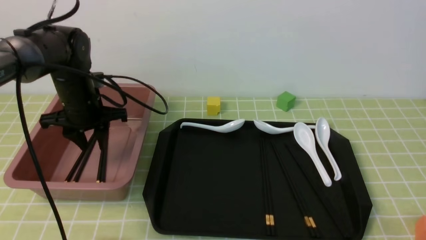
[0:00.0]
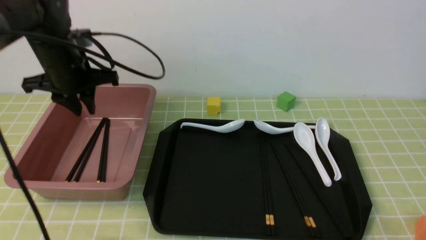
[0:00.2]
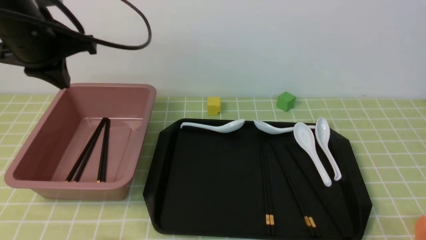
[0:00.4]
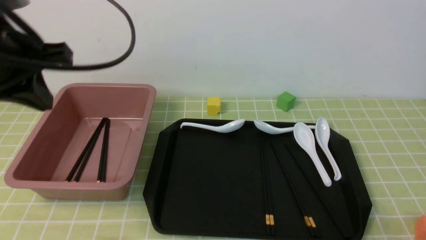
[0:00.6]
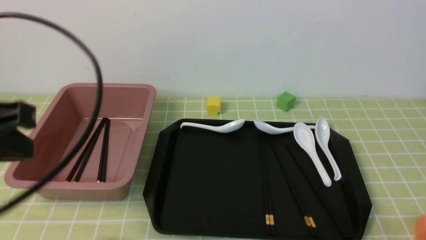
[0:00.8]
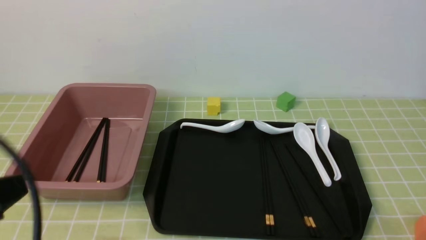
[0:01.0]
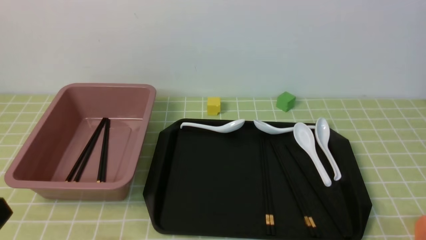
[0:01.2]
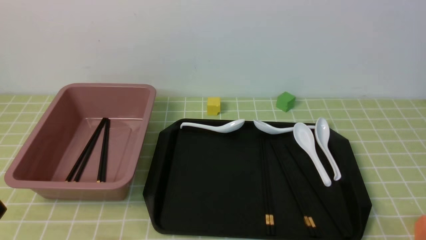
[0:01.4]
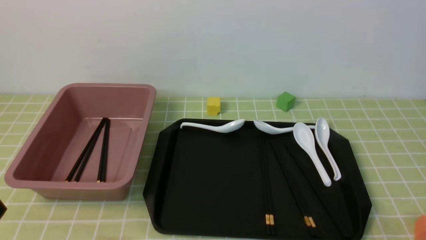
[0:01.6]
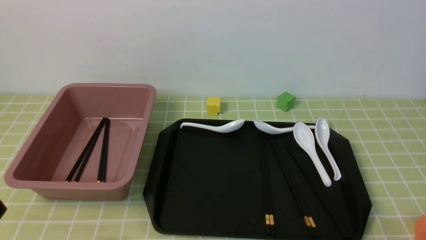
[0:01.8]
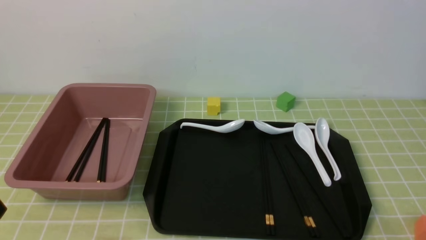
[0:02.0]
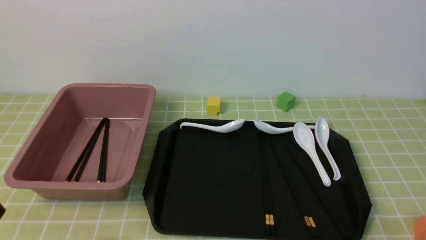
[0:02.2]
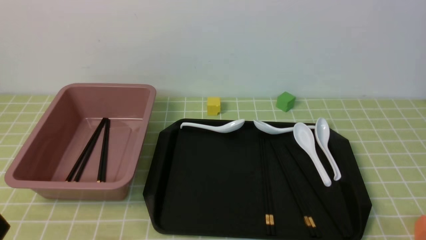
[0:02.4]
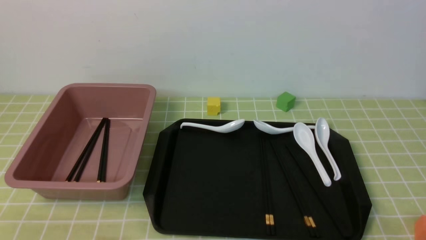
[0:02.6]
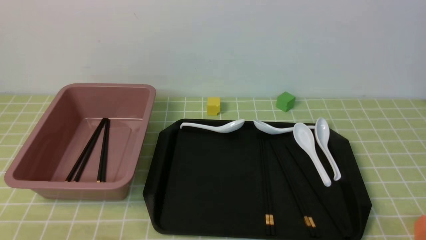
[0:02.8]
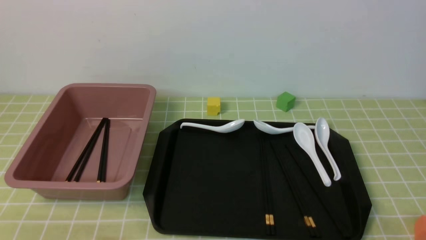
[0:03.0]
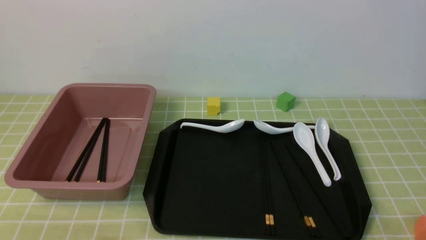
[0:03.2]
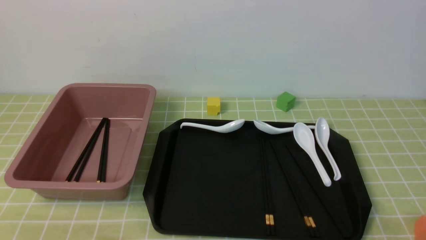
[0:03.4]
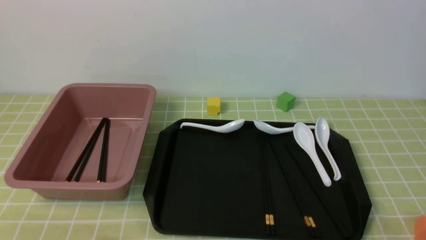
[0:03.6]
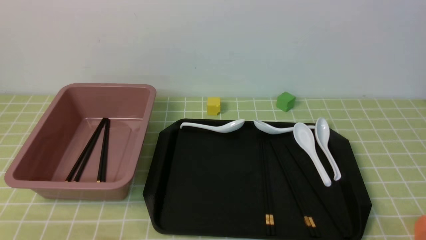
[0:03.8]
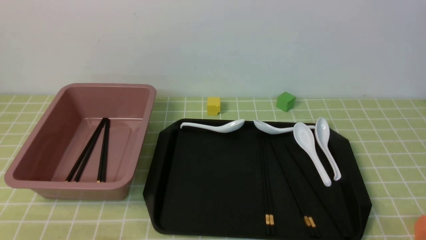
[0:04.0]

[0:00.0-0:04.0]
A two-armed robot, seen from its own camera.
0:00.0 to 0:01.4: The left gripper travels backward by about 35 cm, and closes up.

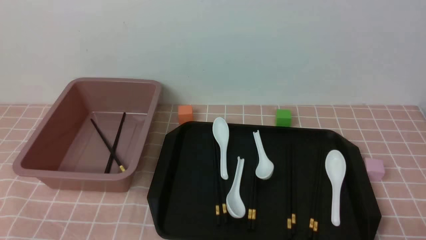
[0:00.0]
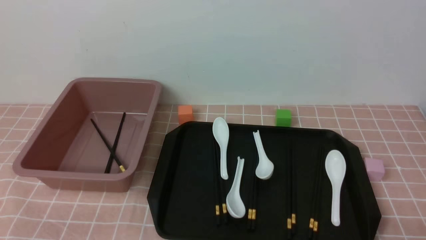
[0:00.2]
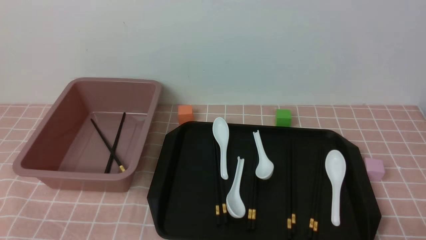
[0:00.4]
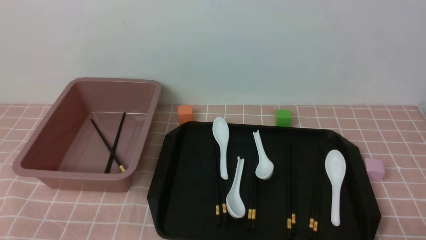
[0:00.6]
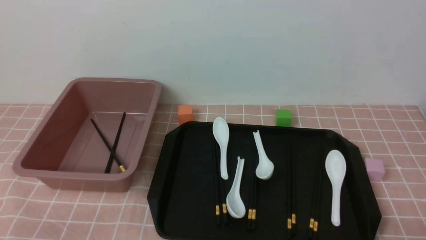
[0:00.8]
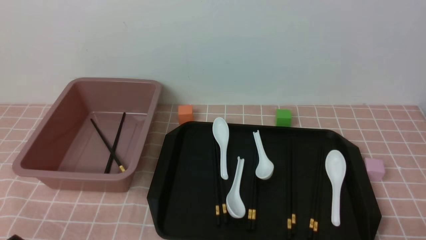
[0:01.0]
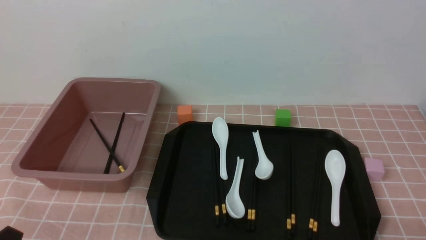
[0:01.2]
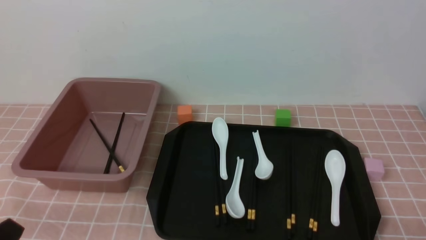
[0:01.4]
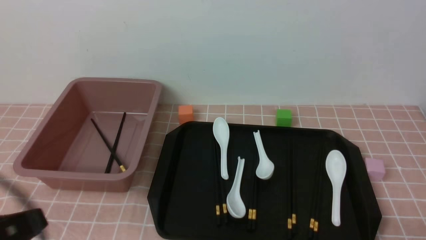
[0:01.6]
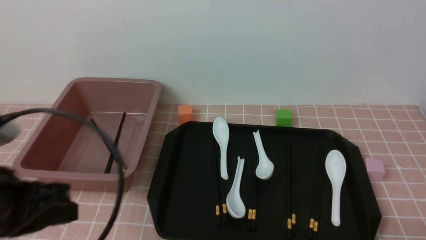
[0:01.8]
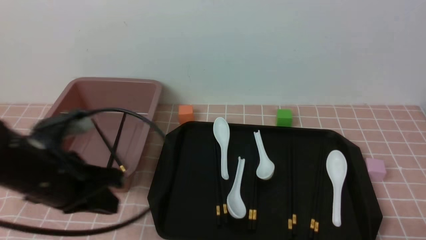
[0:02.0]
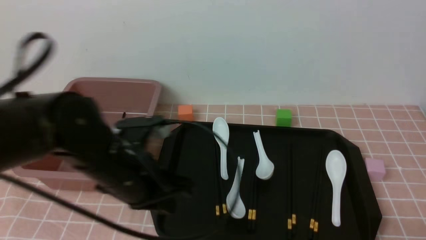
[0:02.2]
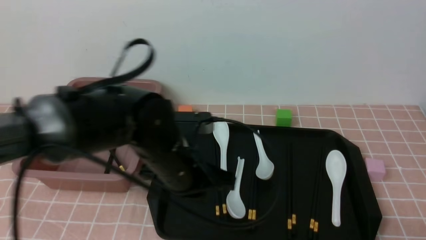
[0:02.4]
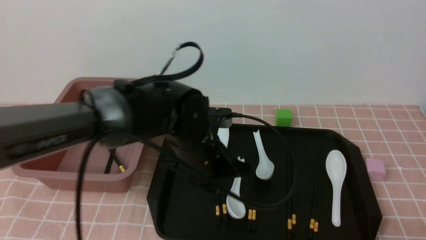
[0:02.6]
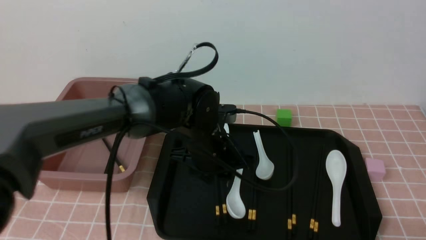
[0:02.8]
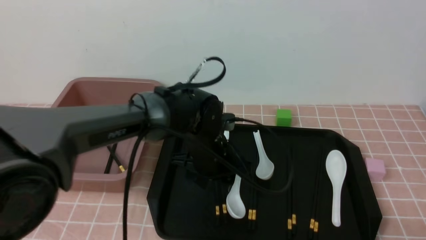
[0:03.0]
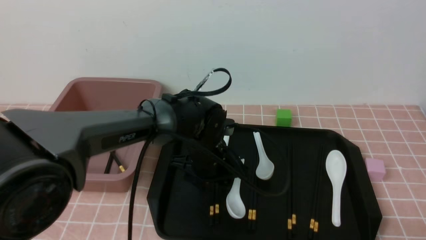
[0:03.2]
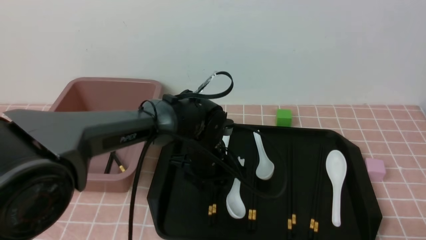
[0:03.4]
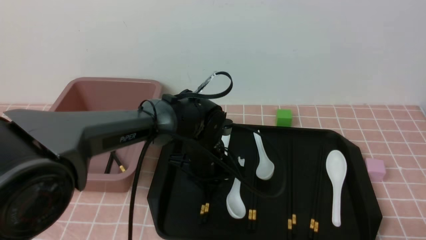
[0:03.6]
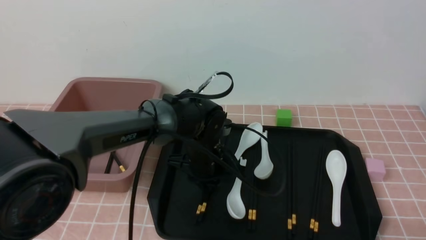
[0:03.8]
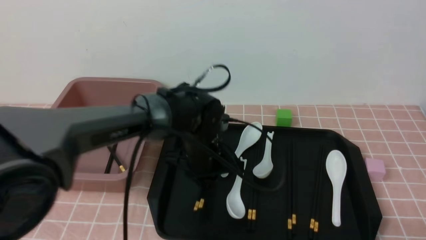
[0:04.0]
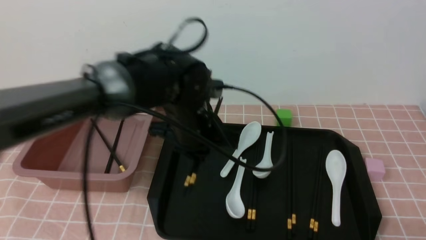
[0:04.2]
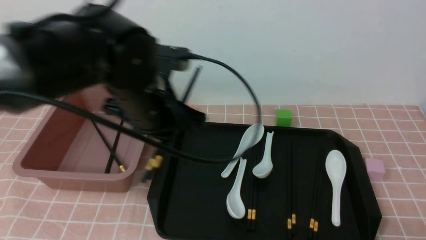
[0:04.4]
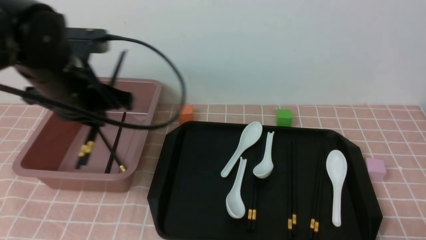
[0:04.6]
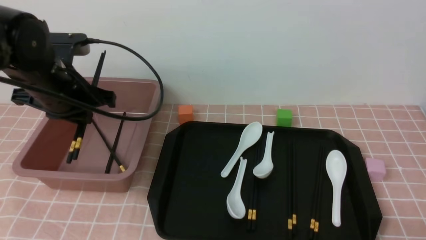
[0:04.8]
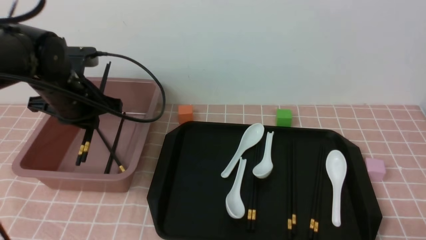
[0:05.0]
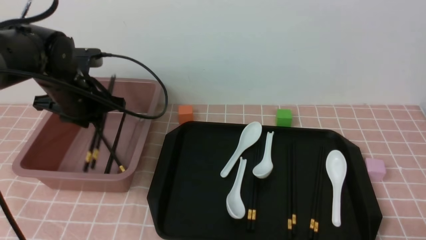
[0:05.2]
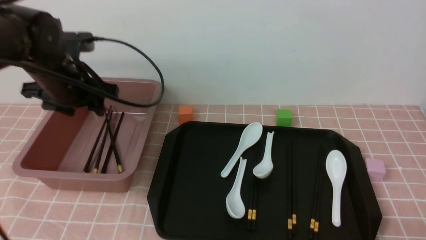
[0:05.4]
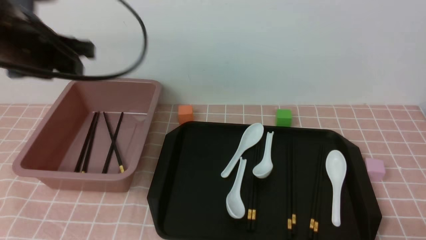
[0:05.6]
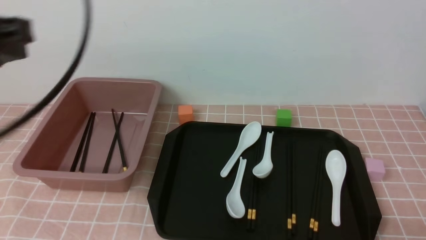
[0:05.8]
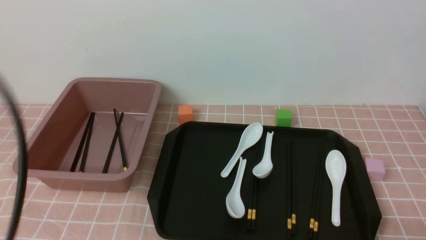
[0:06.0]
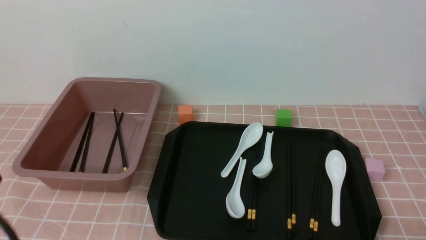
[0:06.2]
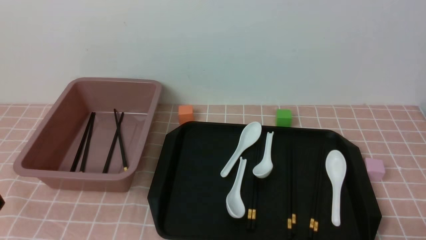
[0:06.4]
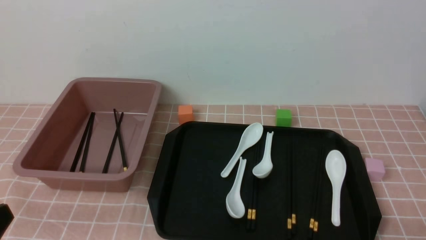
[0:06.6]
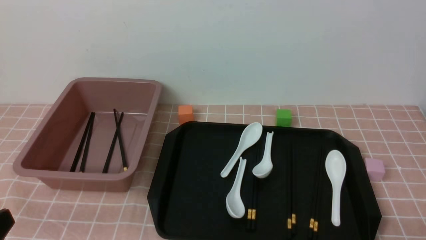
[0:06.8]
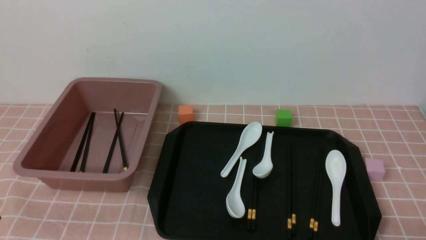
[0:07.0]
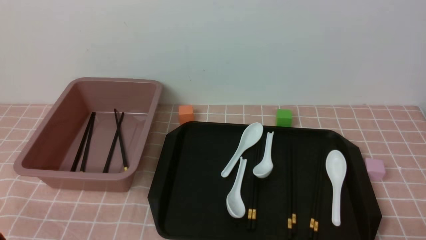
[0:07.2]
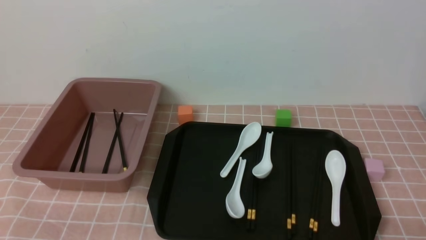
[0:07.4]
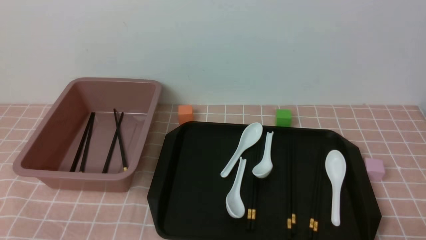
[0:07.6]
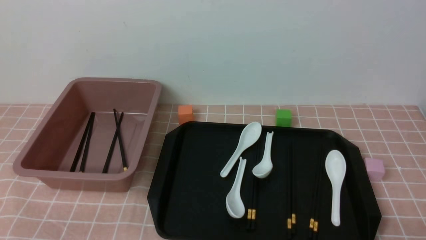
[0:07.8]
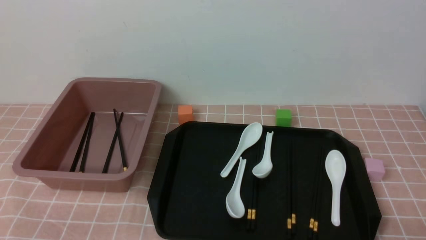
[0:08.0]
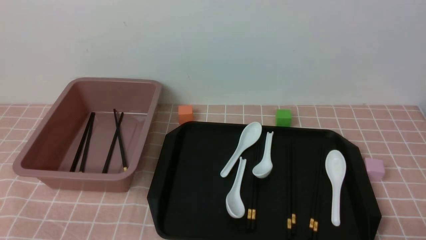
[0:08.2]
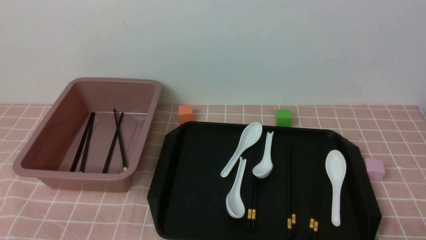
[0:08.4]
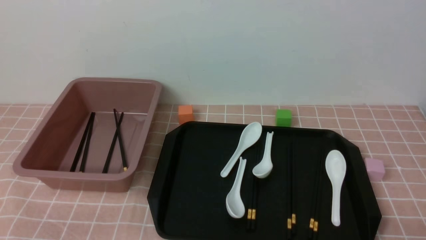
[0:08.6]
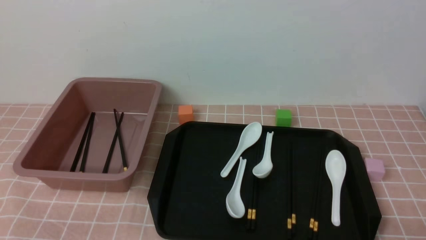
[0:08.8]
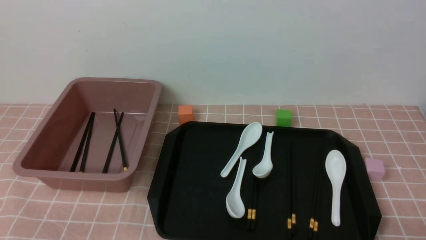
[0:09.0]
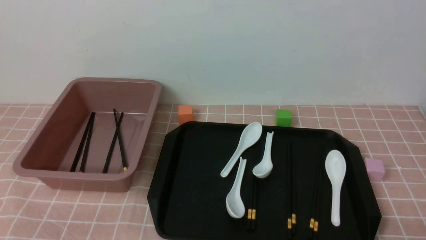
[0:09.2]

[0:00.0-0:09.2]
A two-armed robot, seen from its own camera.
Step, 0:00.0 to 0:04.2: use the left arm to grab a pair of chopsticks.
Step, 0:04.4 to 0:05.4: use the left arm to put the chopsticks into the lunch box.
0:00.0 to 0:01.6: The left gripper goes approximately 10 cm upward.
0:01.6 to 0:03.0: The left gripper travels forward, to the right and downward by some 35 cm, and opens its fingers.
0:03.0 to 0:04.6: The left gripper shifts approximately 20 cm to the left and upward, and closes its fingers.
0:04.6 to 0:06.2: The left gripper is displaced backward by roughly 25 cm, and opens, then closes once more.
0:07.6 to 0:09.2: Both grippers stay about where they are.

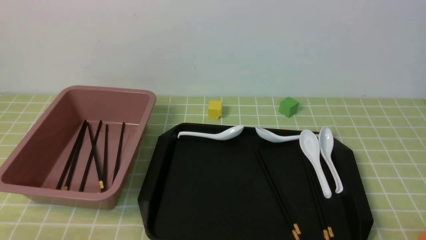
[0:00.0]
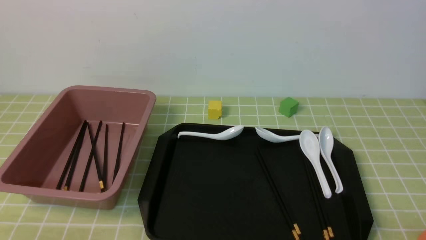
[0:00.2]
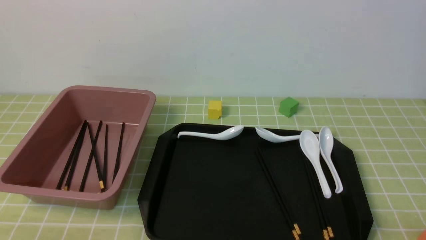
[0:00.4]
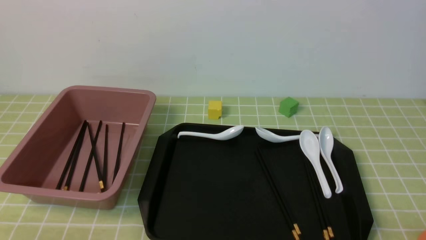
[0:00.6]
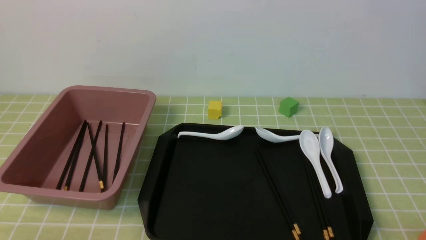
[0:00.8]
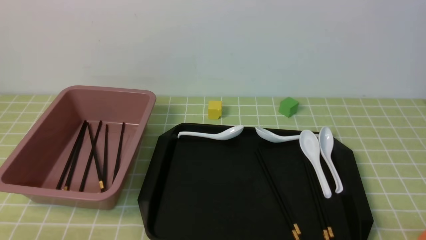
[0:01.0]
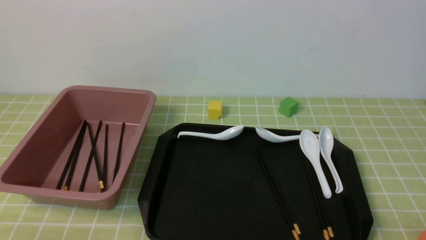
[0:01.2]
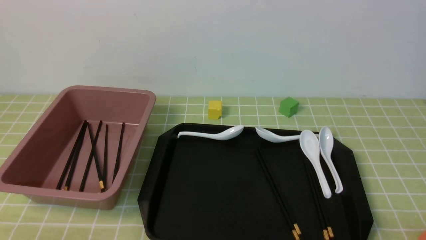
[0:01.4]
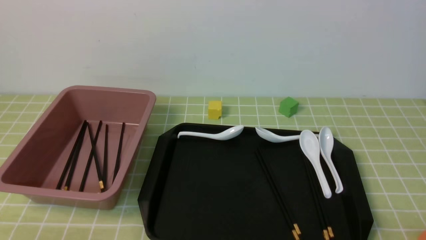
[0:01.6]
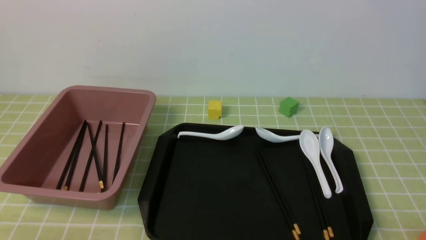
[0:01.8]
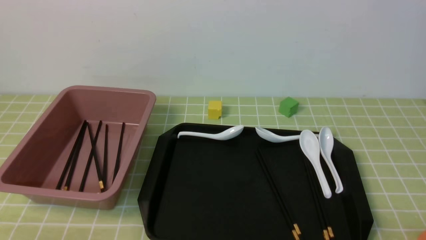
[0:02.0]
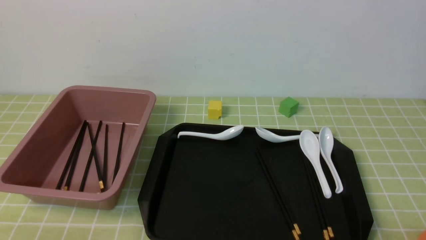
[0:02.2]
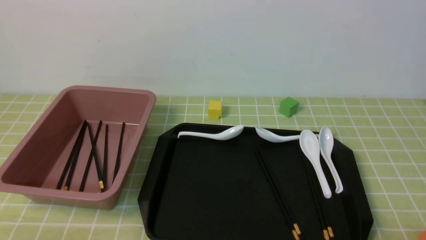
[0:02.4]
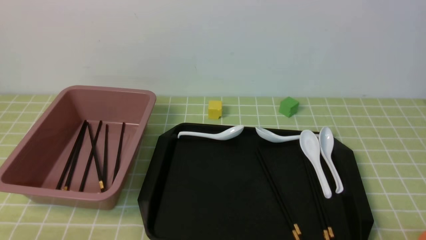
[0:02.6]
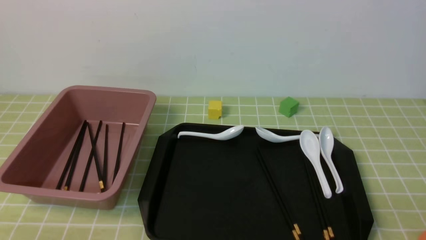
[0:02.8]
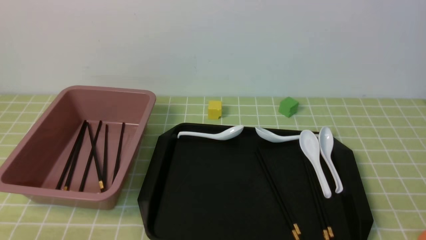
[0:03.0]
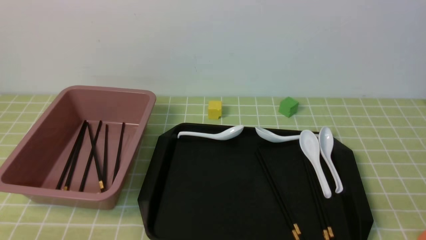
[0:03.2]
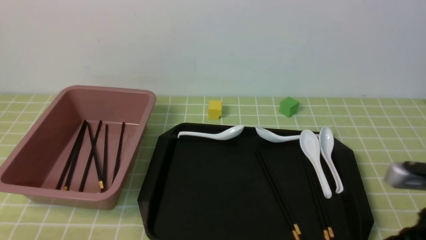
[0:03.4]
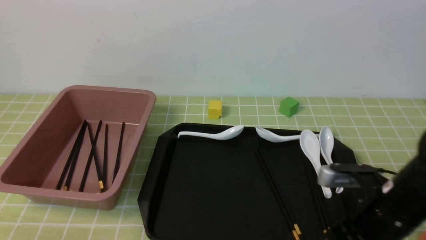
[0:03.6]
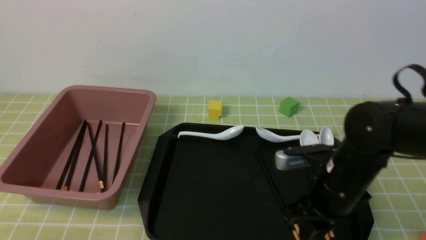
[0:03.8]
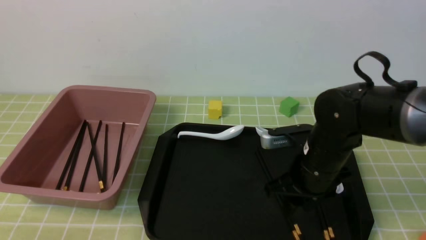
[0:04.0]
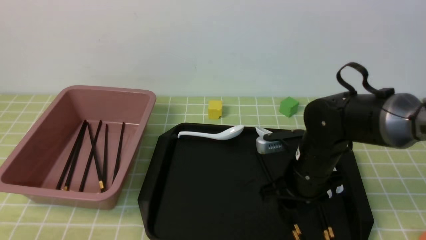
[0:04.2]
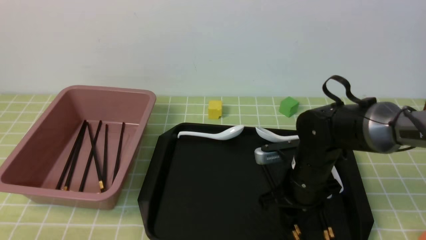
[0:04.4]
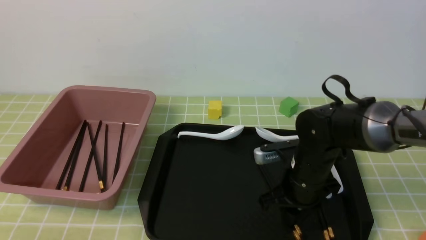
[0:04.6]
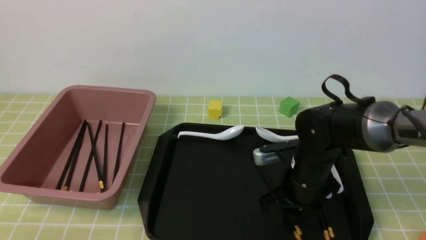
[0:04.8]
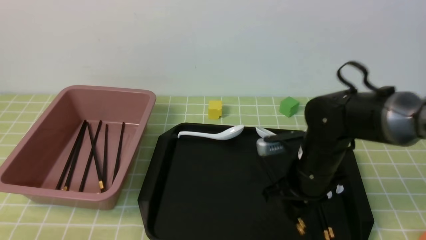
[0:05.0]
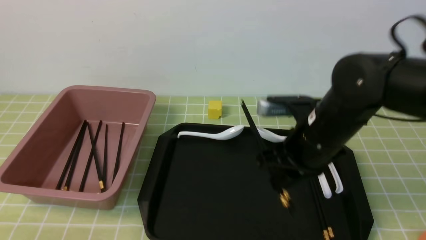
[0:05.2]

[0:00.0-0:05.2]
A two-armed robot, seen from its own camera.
Step, 0:00.0 to 0:05.2: use the right arm to grab a pair of chopsticks.
0:00.0 to 0:01.8: The two grippers keep their place.
0:01.8 to 0:03.4: The right gripper shifts approximately 15 cm forward, upward and to the left, and closes.
0:03.4 to 0:05.2: The right gripper travels to the left and forward by about 20 cm, and opens, then closes again.
